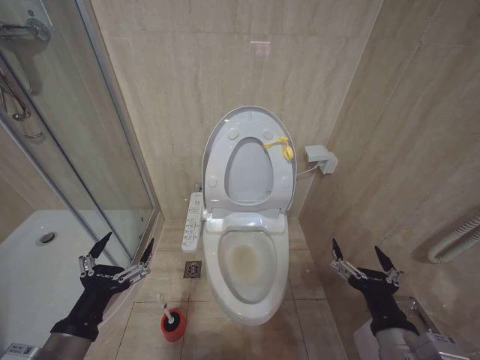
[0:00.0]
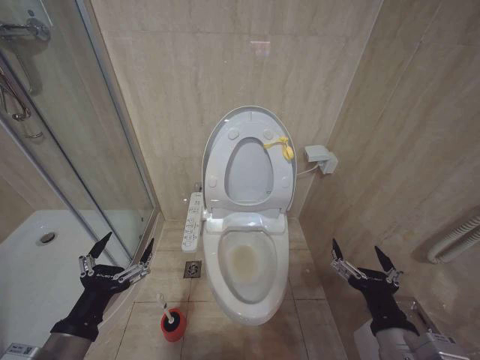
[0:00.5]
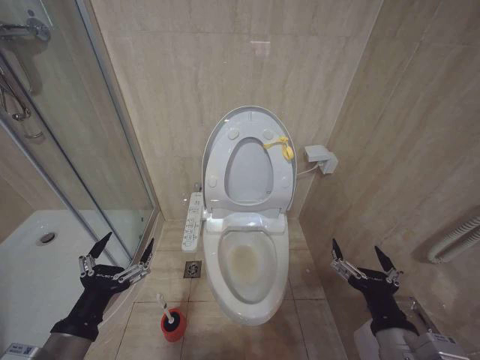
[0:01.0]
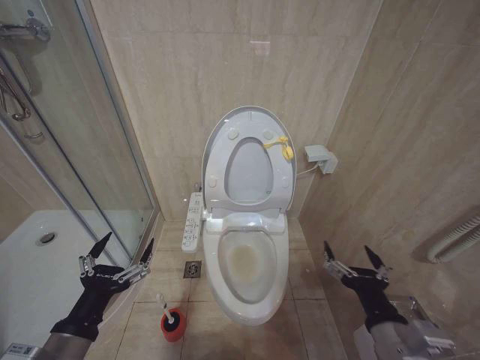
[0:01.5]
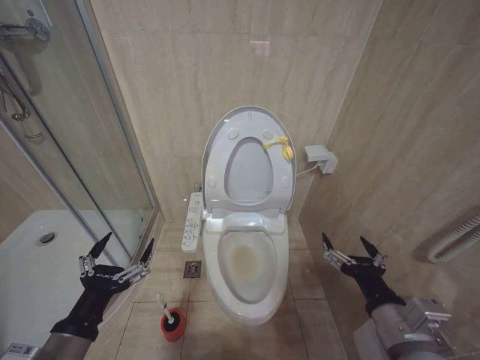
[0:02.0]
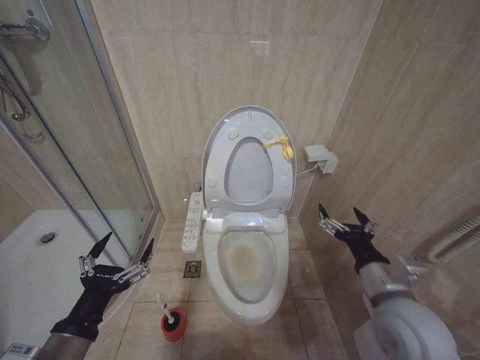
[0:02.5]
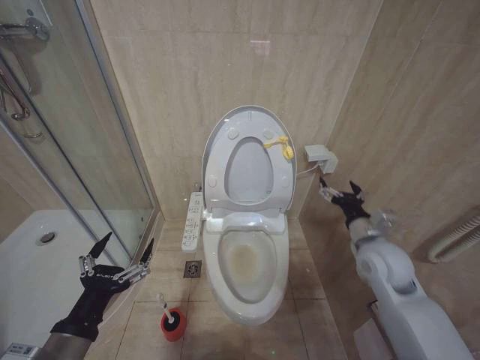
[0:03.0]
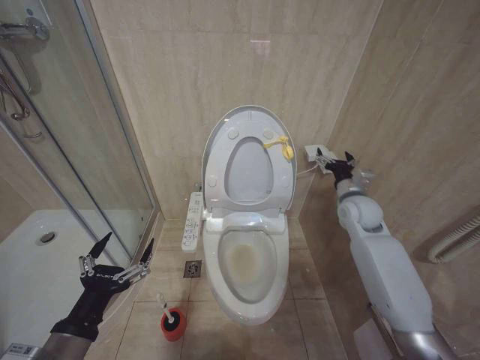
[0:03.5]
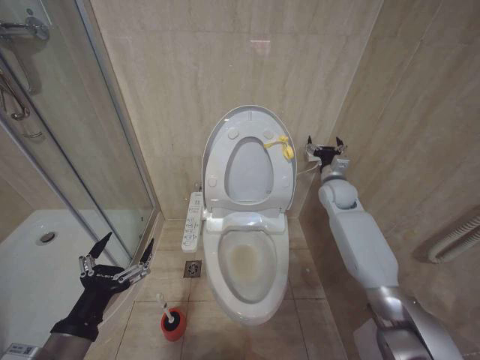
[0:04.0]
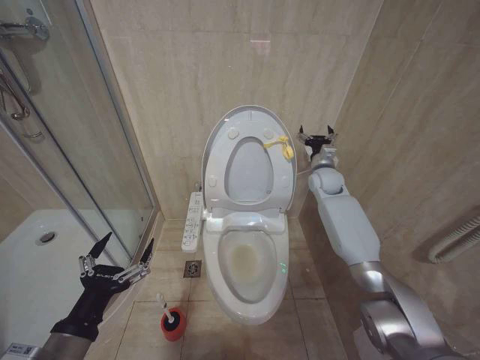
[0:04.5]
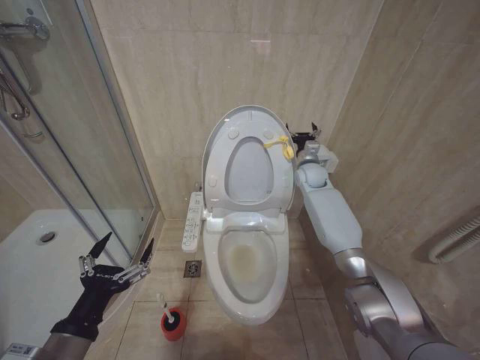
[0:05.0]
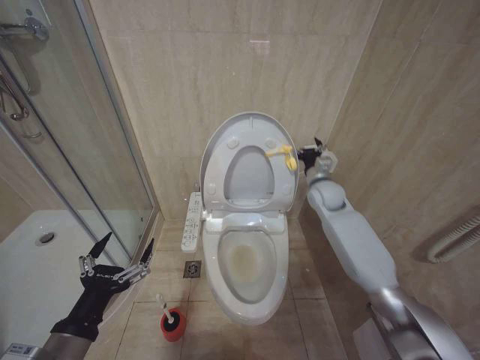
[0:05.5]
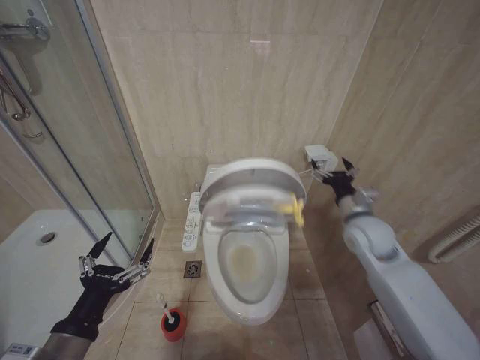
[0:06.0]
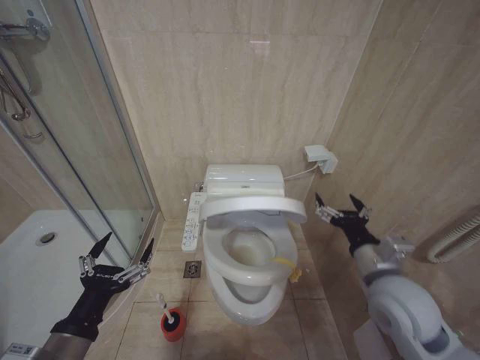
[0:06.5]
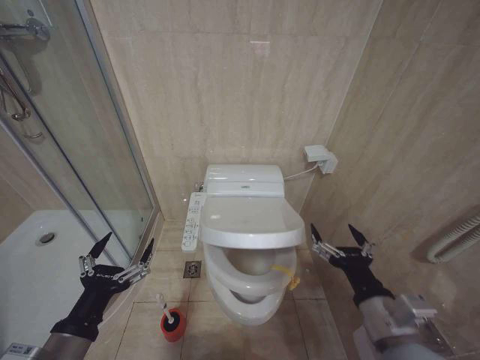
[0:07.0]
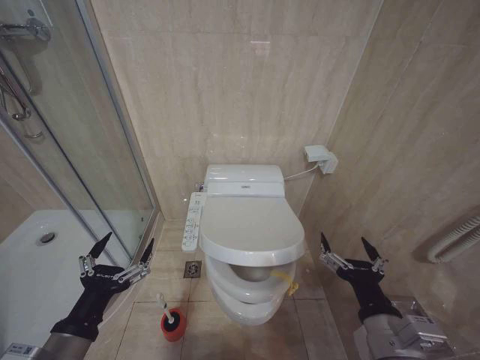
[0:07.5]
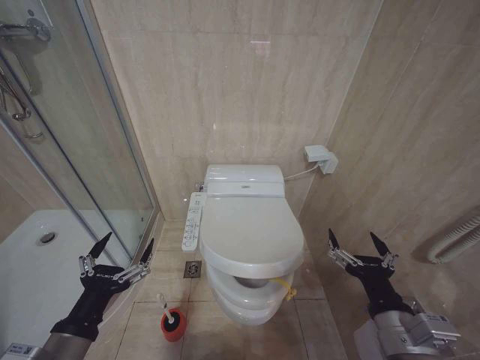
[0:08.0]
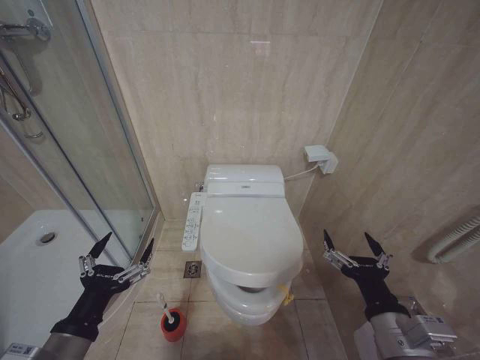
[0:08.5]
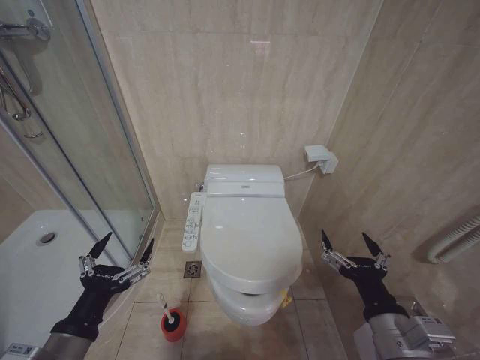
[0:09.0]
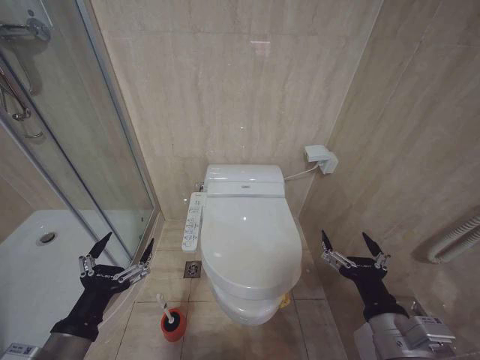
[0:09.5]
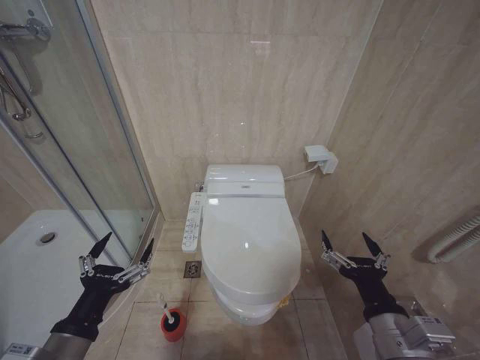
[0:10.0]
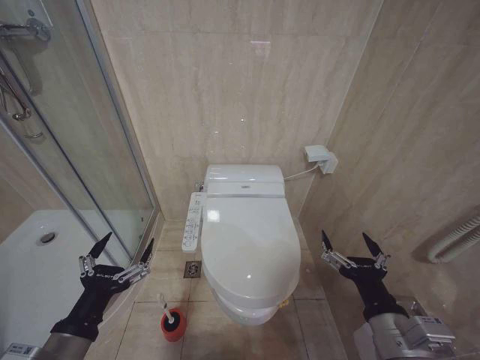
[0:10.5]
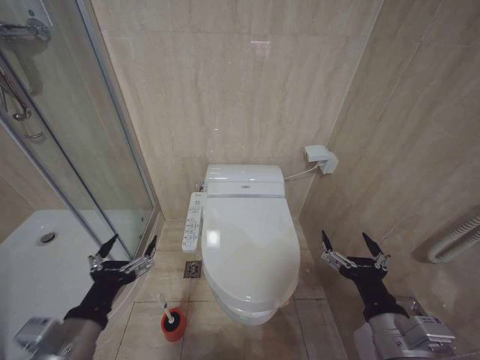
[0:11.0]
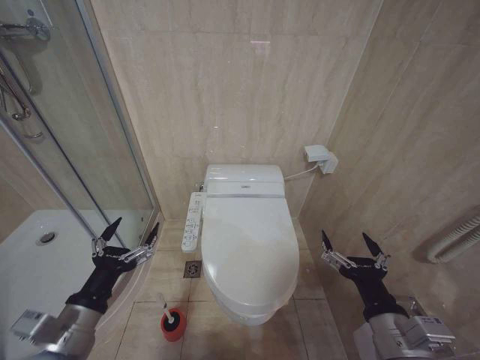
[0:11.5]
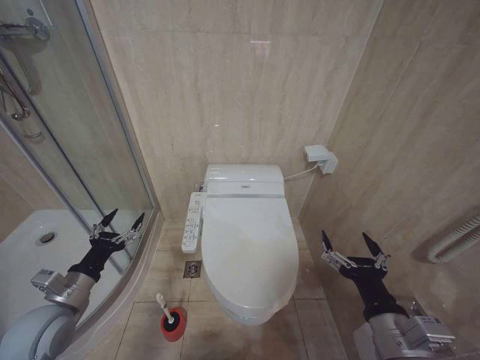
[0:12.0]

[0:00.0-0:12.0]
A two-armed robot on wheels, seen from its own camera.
Task of the whole recording: Open the toilet lid, clean the toilet bowl with a toilet brush, close the toilet lid, and flush.
0:00.0 to 0:02.0: The grippers stay close to where they were, moving slightly.
0:02.0 to 0:04.0: The right gripper travels forward by approximately 40 cm.
0:04.0 to 0:06.0: The right gripper shifts approximately 15 cm backward.
0:06.0 to 0:08.0: The right gripper shifts approximately 25 cm backward.
0:08.0 to 0:10.0: Both grippers stay about where they are.
0:10.0 to 0:12.0: The left gripper is displaced forward and to the left by some 15 cm.

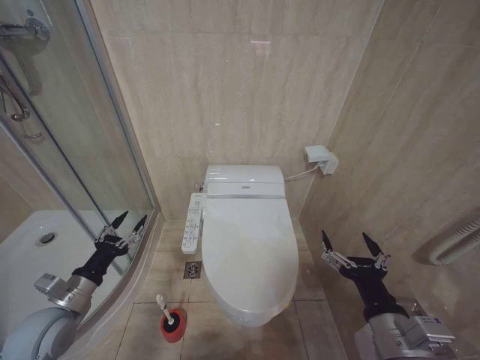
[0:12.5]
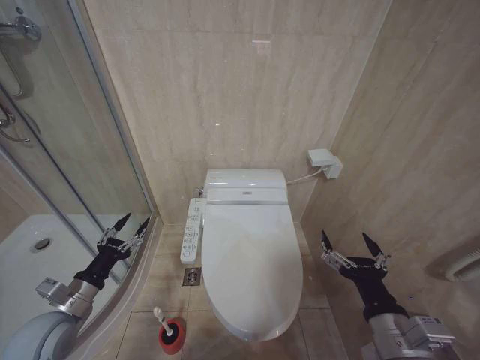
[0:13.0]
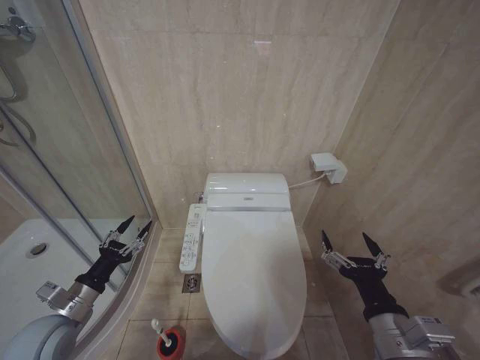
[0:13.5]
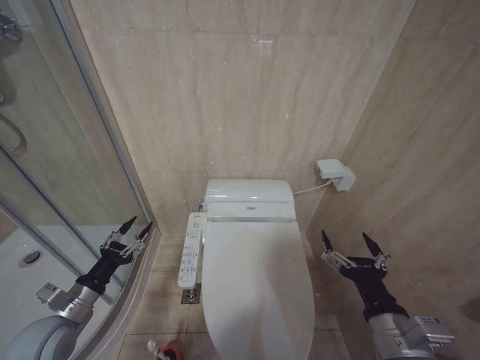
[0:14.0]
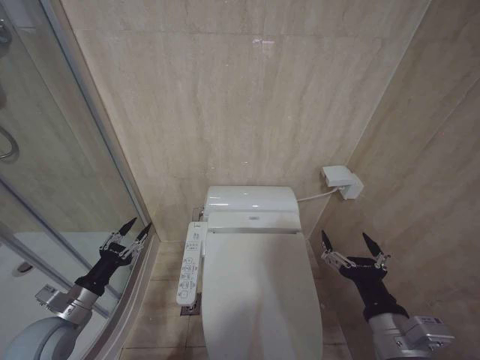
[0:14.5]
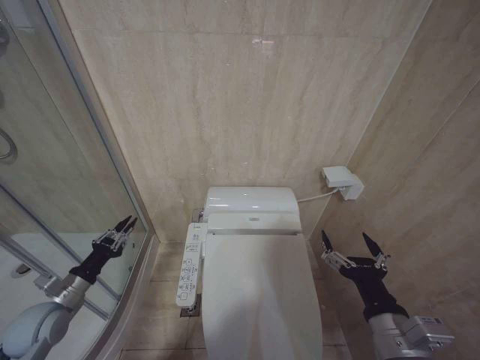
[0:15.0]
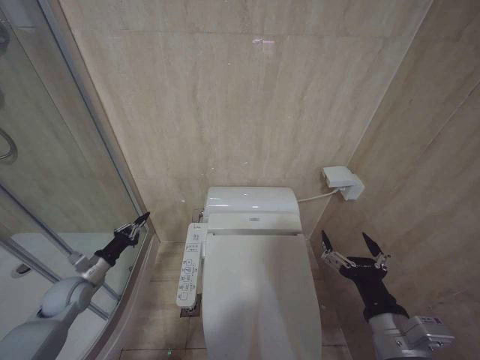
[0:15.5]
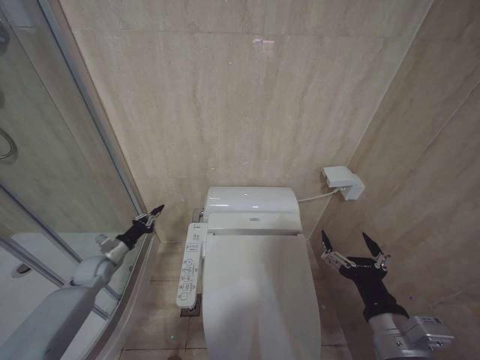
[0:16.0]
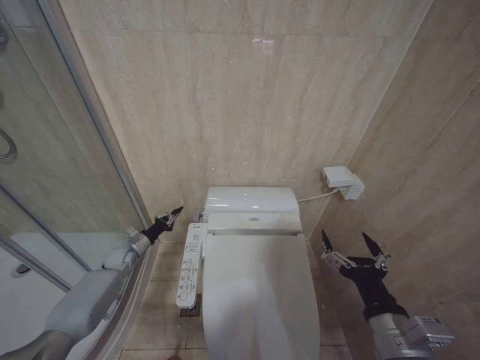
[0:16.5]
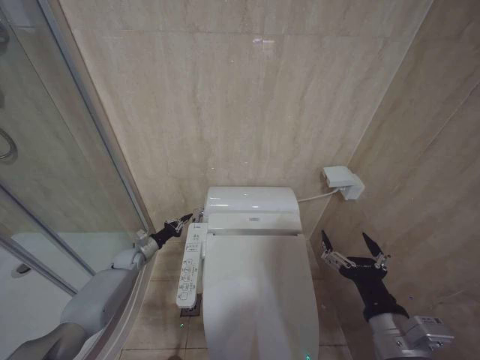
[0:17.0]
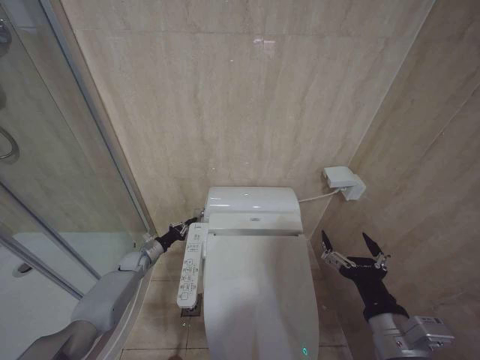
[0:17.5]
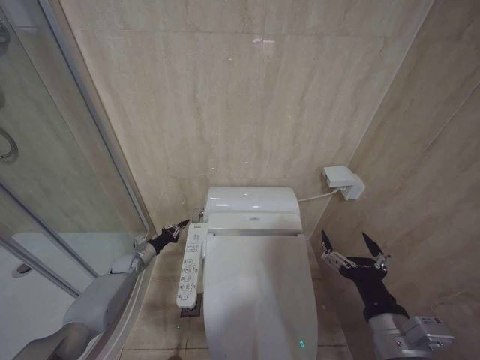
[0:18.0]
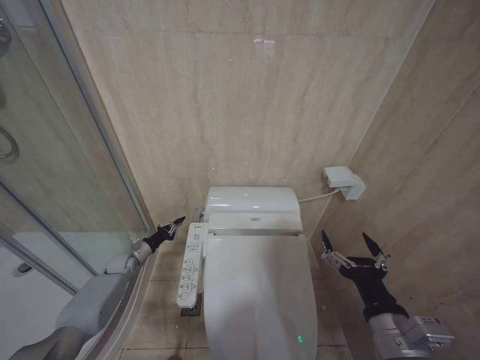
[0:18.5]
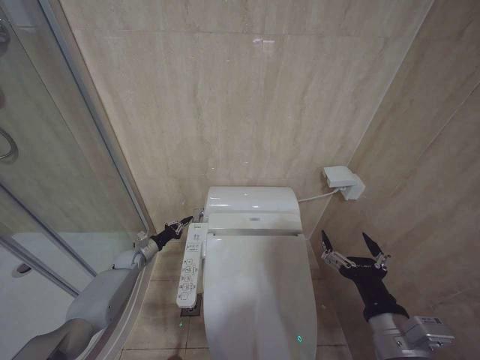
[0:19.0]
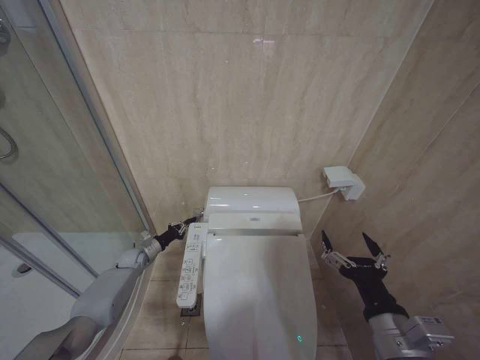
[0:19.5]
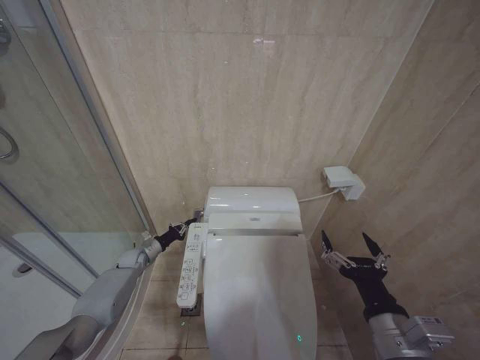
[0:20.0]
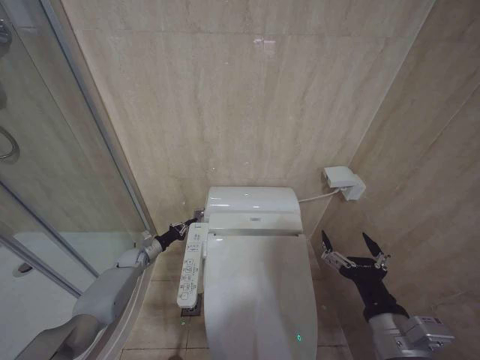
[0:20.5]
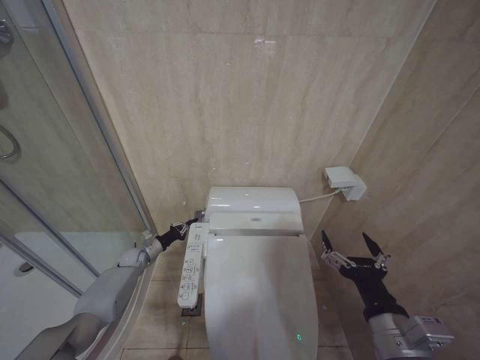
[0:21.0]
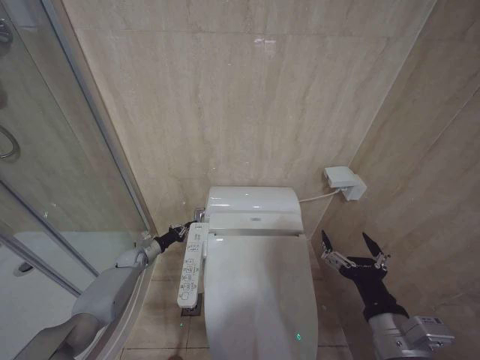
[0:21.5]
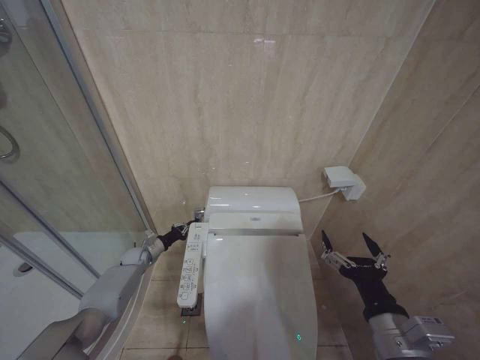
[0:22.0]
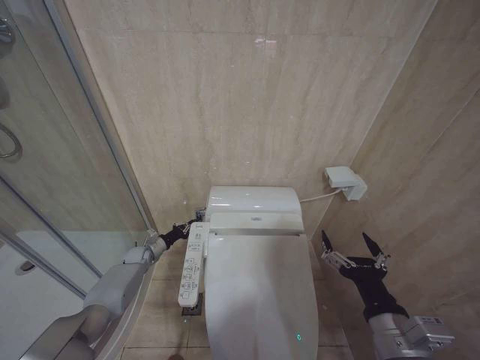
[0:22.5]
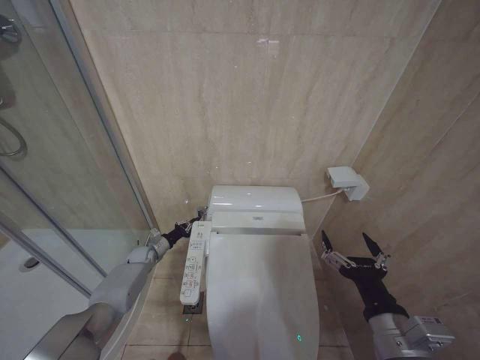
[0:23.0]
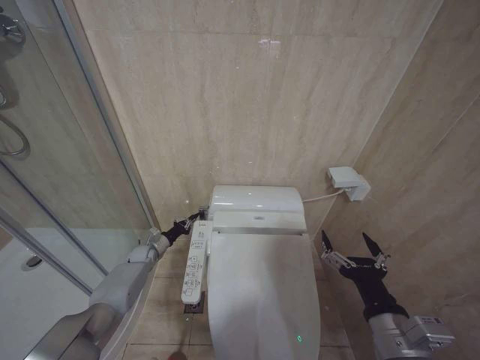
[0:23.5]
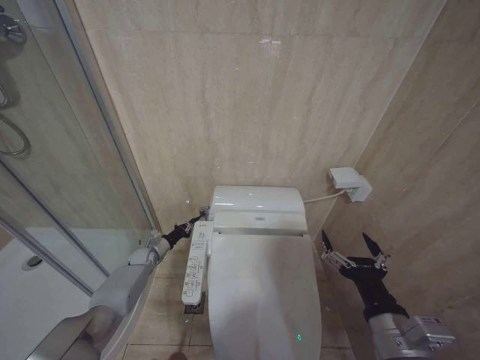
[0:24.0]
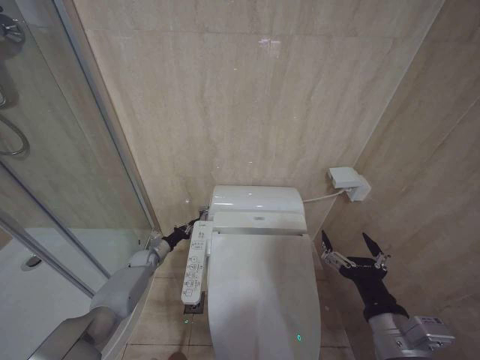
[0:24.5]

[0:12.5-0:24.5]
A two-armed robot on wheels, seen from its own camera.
Task of the whole recording: Open the toilet lid, clean the toilet bowl with a toilet brush, close the toilet lid, and flush.
0:12.5 to 0:14.5: The grippers stay close to where they were, moving slightly.
0:14.5 to 0:16.5: The left gripper is displaced forward and downward by about 25 cm, and closes.
0:16.5 to 0:20.5: The grippers make only small movements.
0:20.5 to 0:24.5: The grippers move only a little.

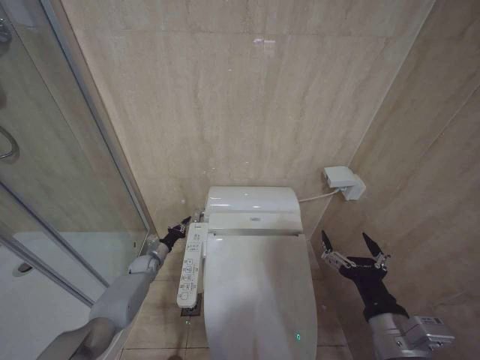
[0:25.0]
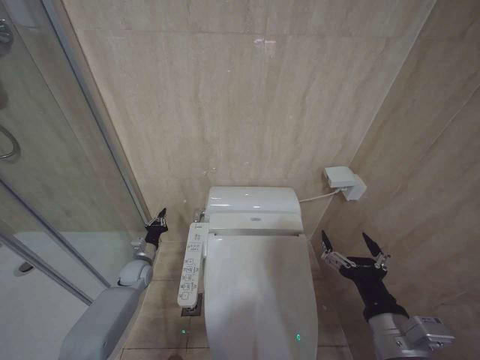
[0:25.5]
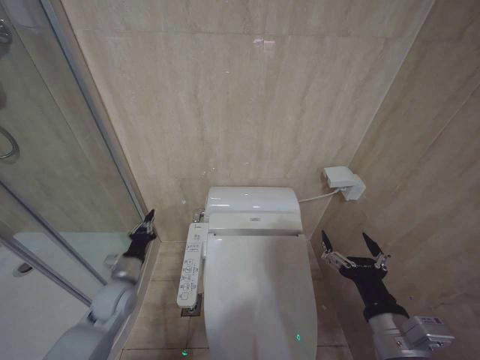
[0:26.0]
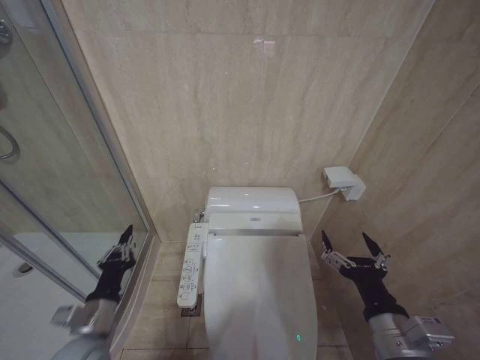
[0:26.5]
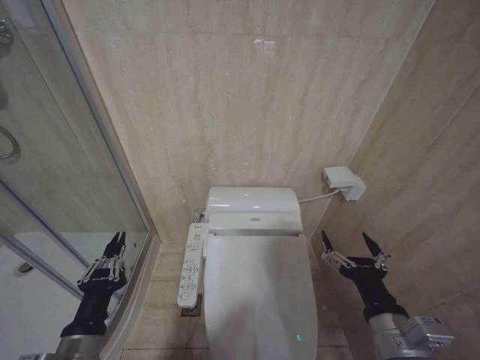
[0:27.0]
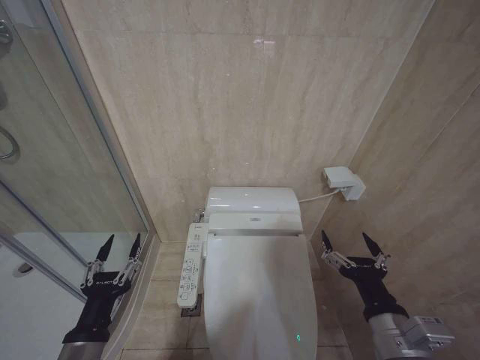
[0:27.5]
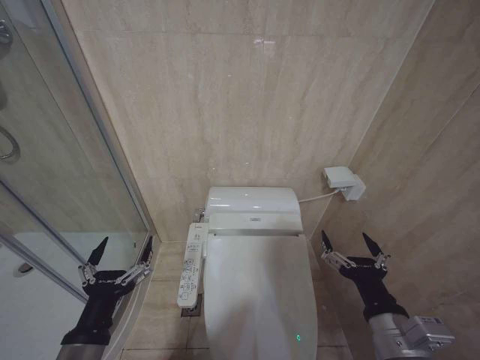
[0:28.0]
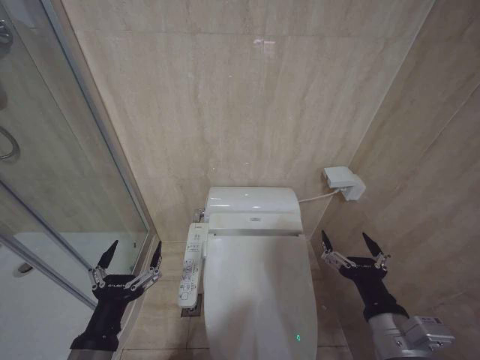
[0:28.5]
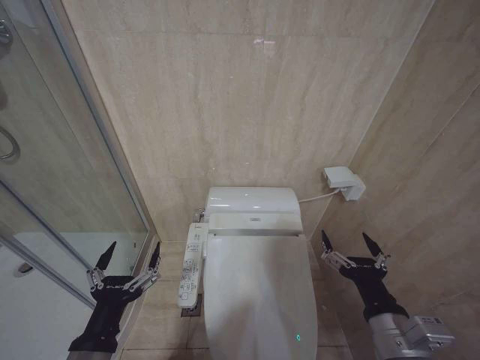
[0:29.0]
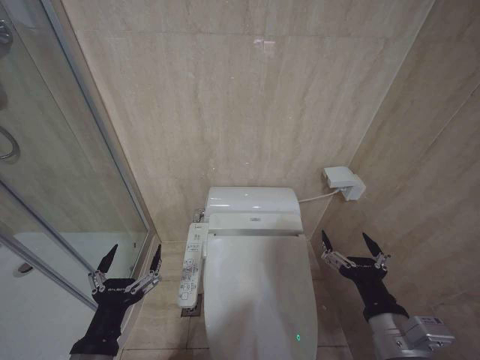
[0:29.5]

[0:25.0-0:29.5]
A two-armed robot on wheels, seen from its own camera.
Task of the whole recording: Open the toilet lid, clean the toilet bowl with a toilet brush, close the toilet lid, and flush.
0:25.0 to 0:27.0: The left gripper shifts roughly 40 cm backward and upward.
0:27.0 to 0:29.5: The left gripper shifts by approximately 5 cm, and opens up.
